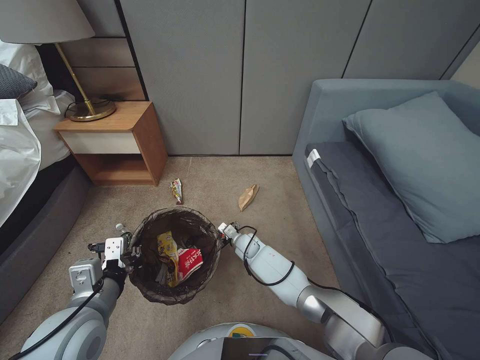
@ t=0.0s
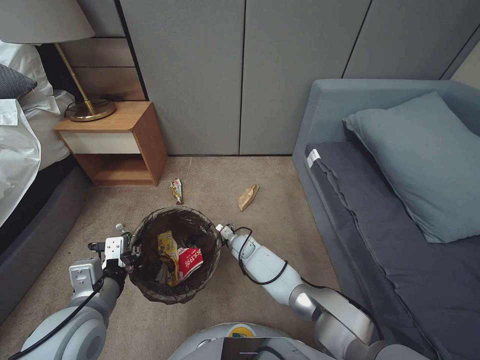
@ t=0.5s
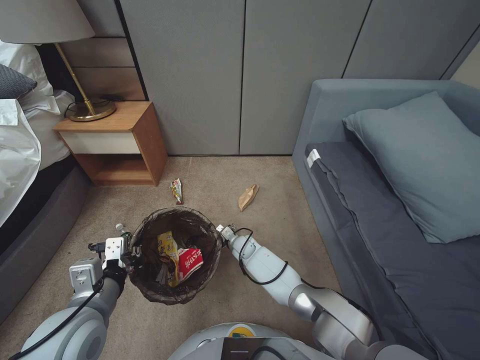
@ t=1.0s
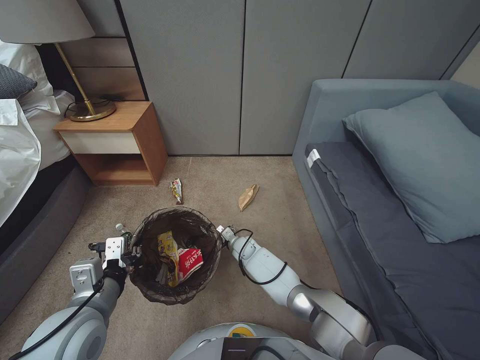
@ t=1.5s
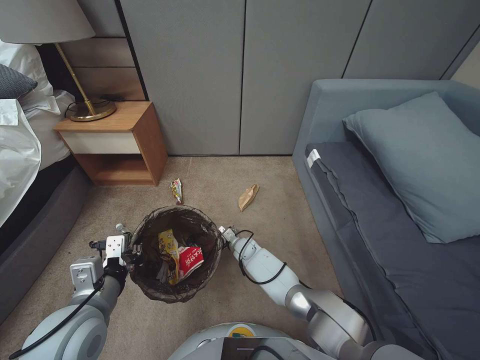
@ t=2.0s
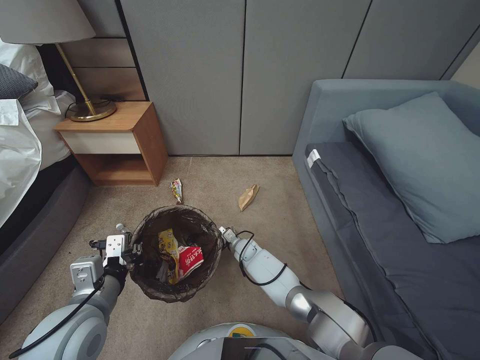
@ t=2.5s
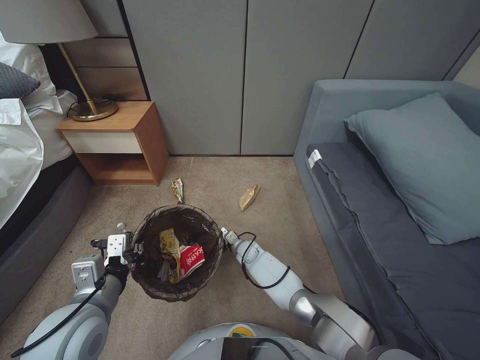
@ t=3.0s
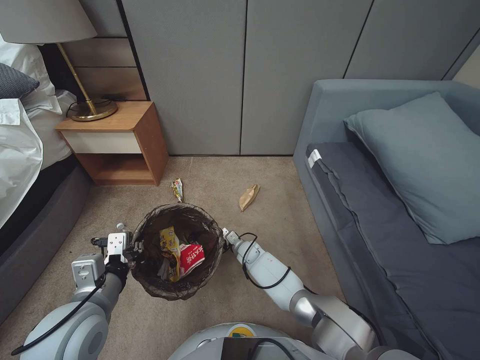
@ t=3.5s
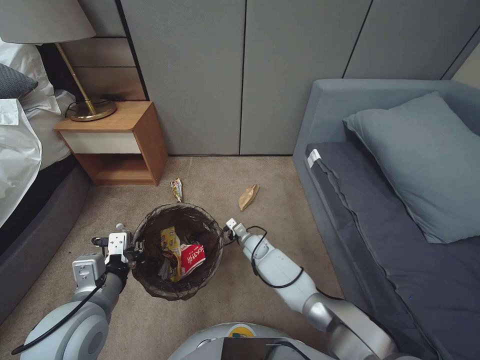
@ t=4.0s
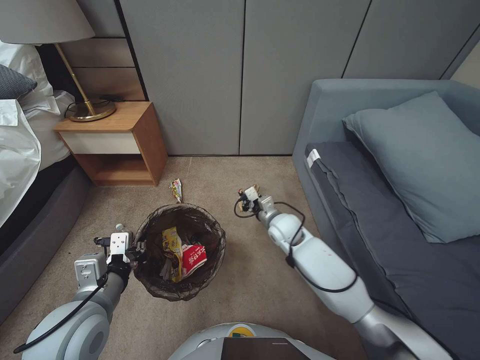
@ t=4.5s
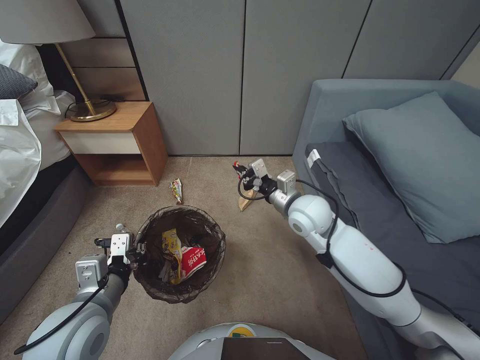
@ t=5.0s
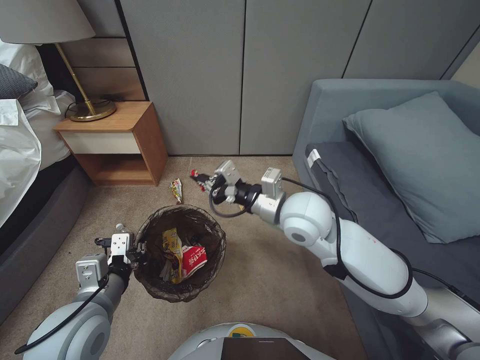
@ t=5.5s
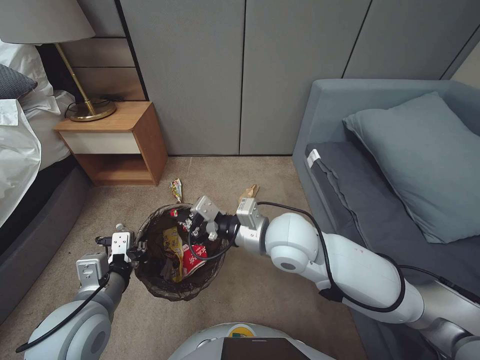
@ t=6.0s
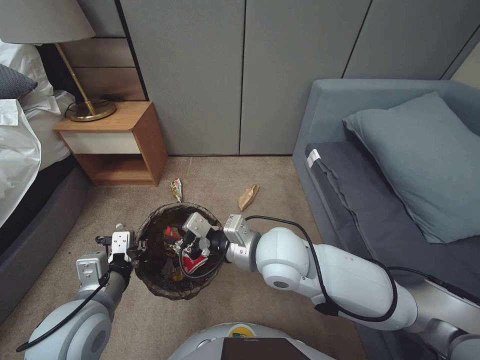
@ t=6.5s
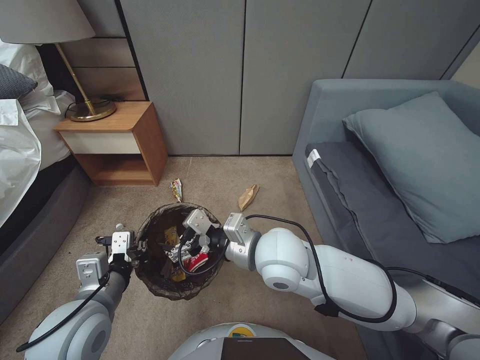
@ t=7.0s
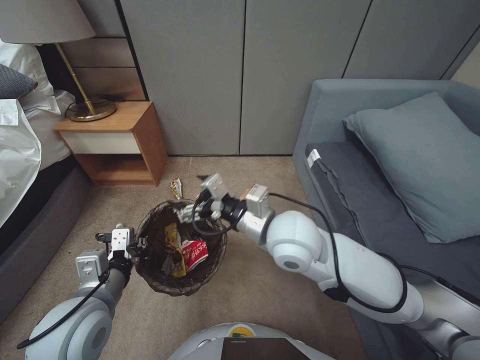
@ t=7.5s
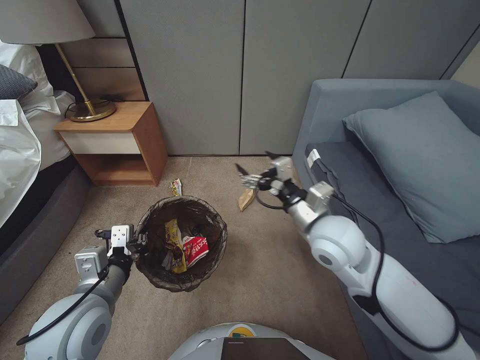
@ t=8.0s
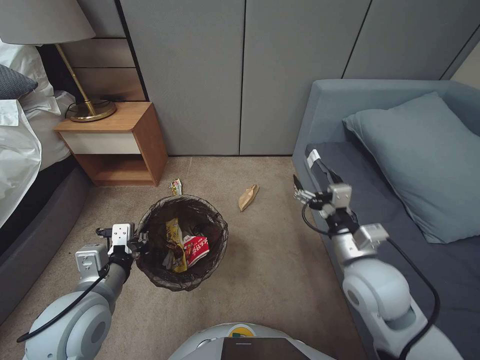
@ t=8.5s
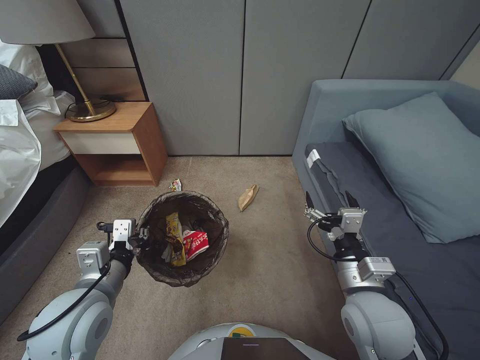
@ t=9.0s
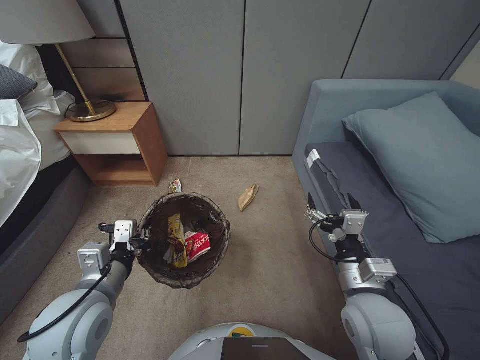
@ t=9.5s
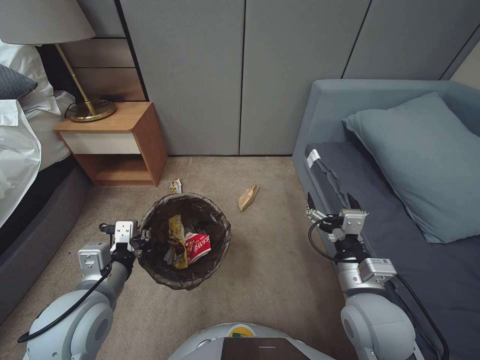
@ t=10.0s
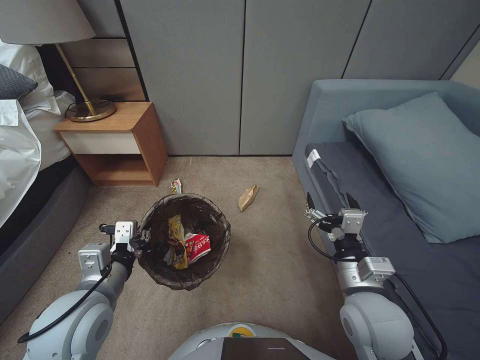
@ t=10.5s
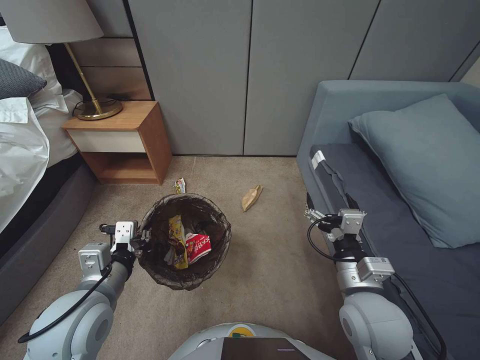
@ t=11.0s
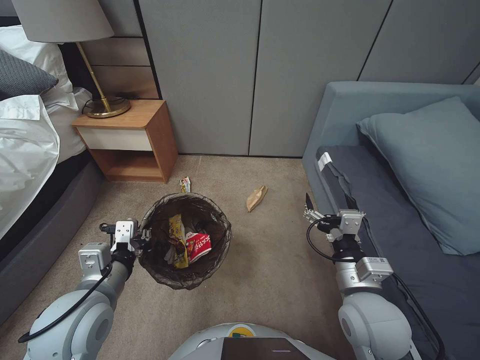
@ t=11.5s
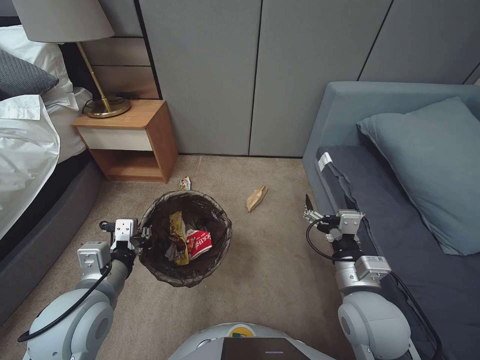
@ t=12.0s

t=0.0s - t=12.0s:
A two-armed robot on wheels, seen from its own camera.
Task of the whole recording: Pick up the trash bin, then pick up the garbage from the floor and place it into the trash bin.
t=0.0s - t=2.0s: The grippers stay close to where they were, moving slightly.
t=2.0s - t=4.0s: The right gripper closes.
t=4.0s - t=6.0s: The right gripper moves upward, roughly 35 cm.
t=6.0s - t=8.0s: The right gripper moves to the right, about 10 cm, and opens.
t=8.0s - t=10.0s: The right gripper heads backward, downward and to the right, covering some 15 cm.
t=10.0s - t=12.0s: Neither gripper changes place.

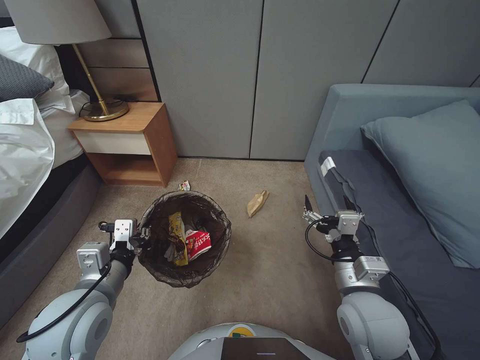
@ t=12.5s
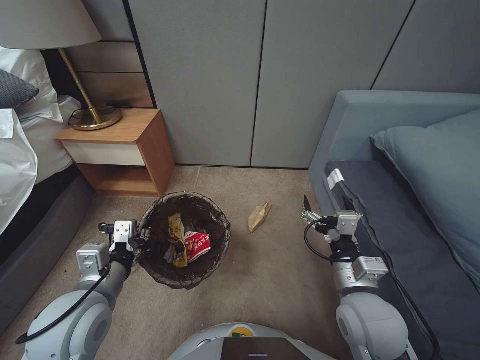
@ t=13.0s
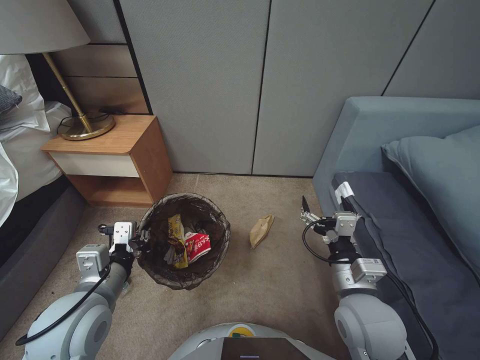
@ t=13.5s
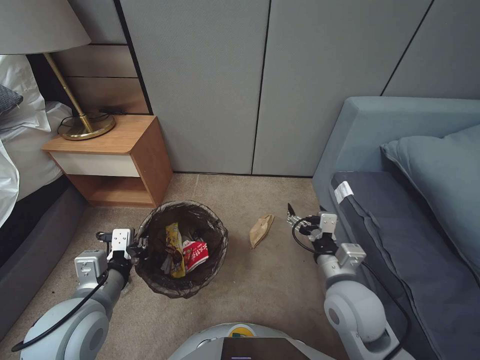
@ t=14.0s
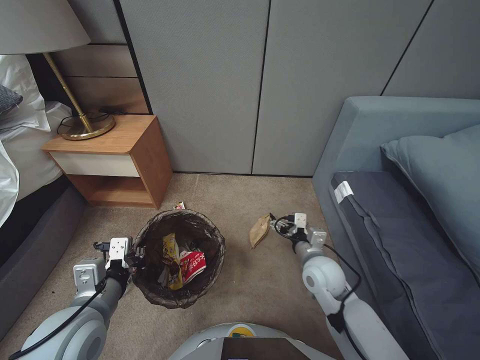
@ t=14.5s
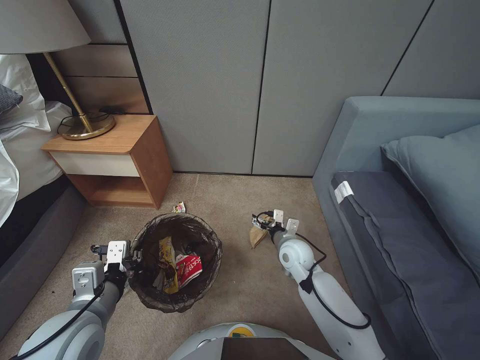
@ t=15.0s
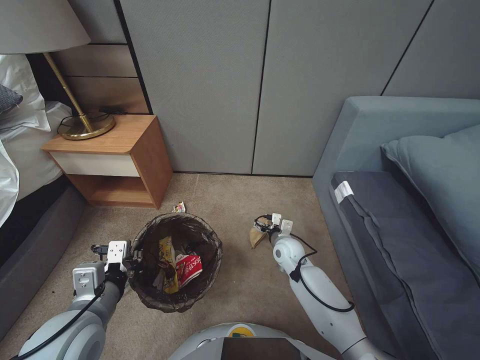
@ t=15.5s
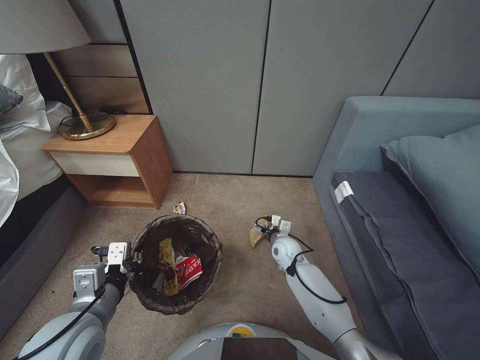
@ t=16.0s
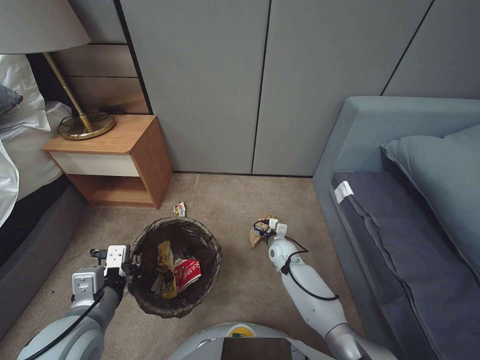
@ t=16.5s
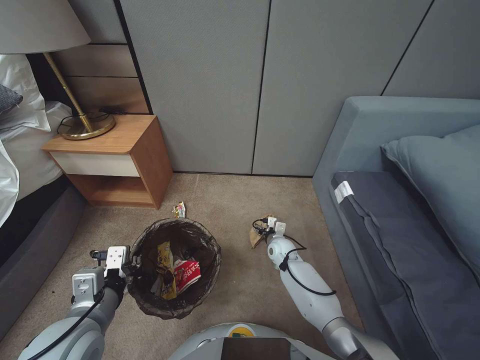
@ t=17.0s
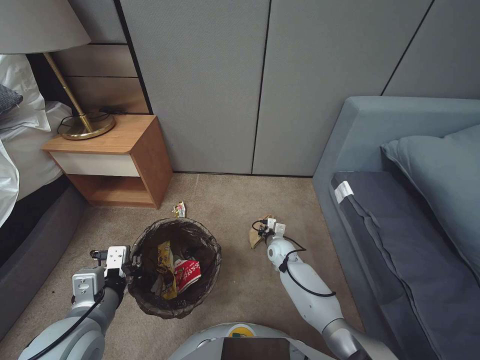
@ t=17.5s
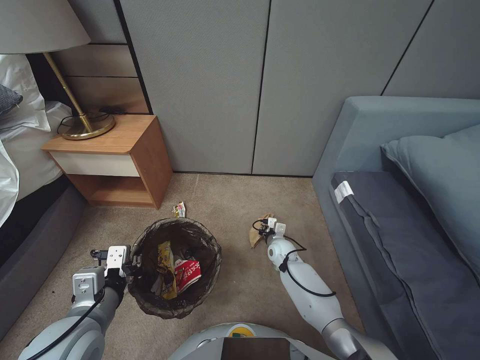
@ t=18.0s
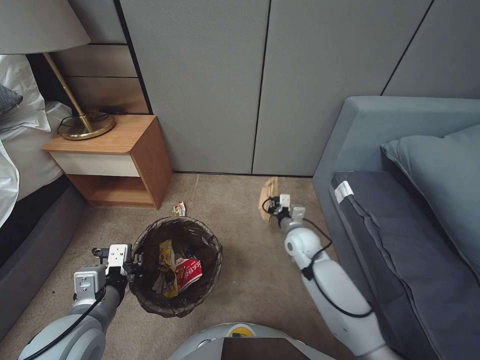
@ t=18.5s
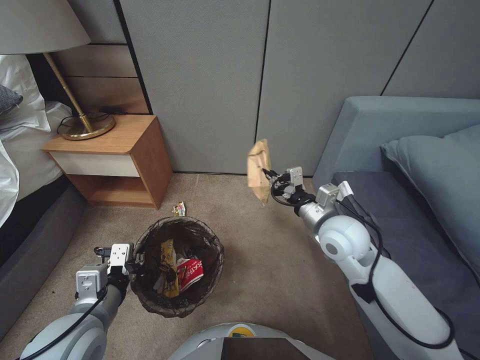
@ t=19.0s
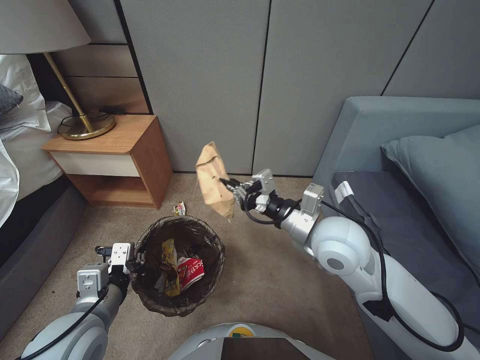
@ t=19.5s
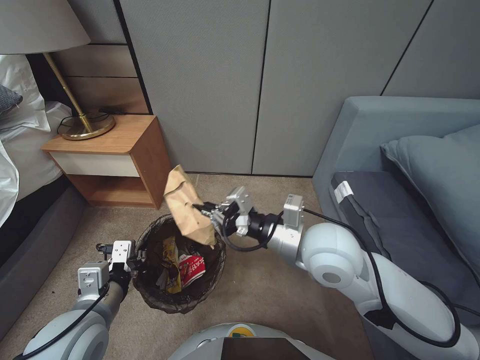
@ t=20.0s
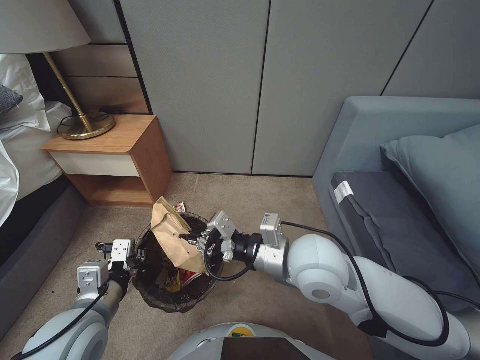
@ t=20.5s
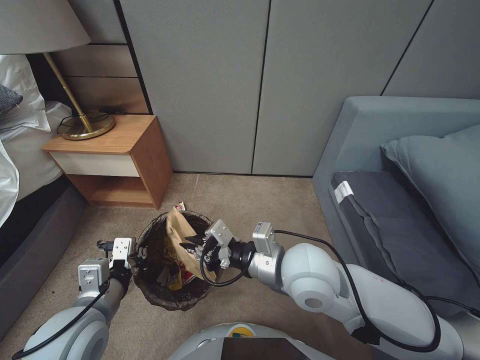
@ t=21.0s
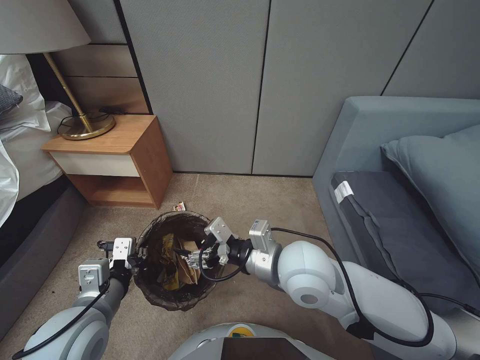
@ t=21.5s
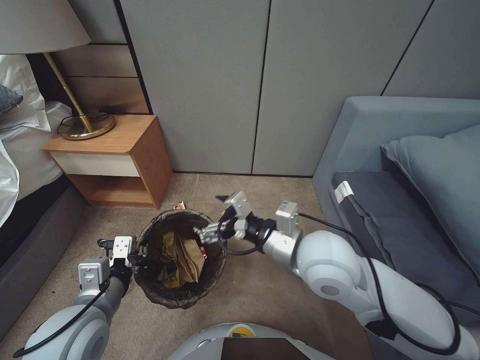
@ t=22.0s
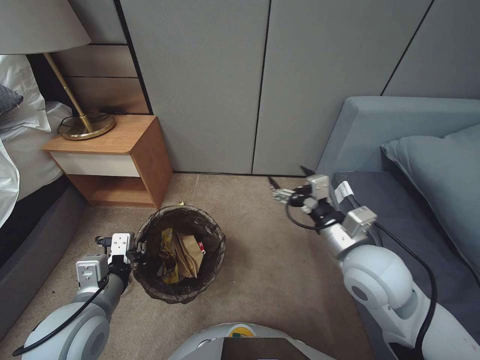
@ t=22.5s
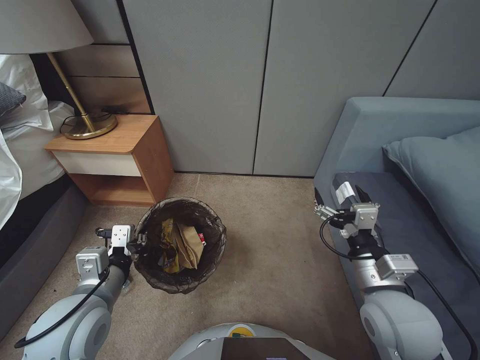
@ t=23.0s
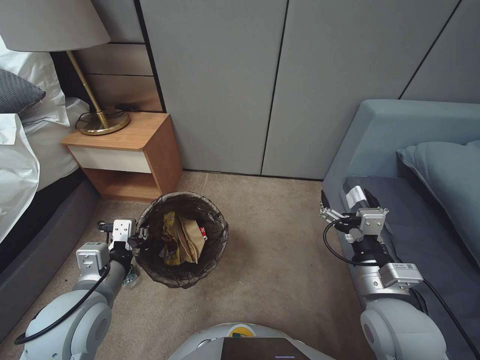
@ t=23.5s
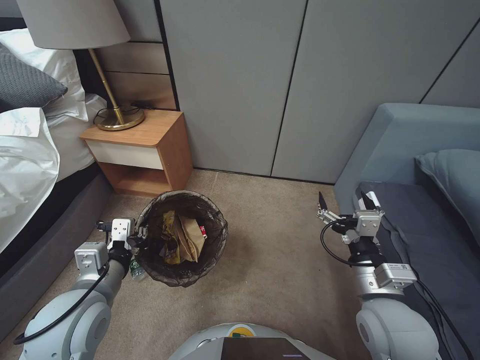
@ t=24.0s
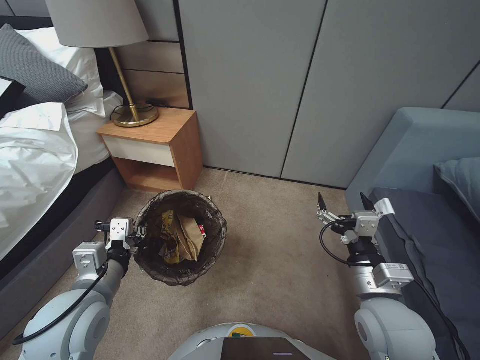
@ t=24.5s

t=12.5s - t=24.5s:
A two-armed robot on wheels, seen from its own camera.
Task of the whole recording: Pick up the trash bin, then pick up the garbage from the floor and place it into the trash bin.
t=12.5s - t=14.5s: The right gripper goes some 10 cm forward and downward.
t=14.5s - t=16.5s: The right gripper heads downward and forward, covering about 20 cm.
t=16.5s - t=18.5s: The right gripper moves upward, some 10 cm, and closes its fingers.
t=18.5s - t=20.5s: The right gripper goes about 30 cm upward and backward.
t=20.5s - t=22.5s: The right gripper heads to the right, covering about 10 cm, and opens.
t=22.5s - t=24.5s: The right gripper is displaced backward and downward by some 10 cm.

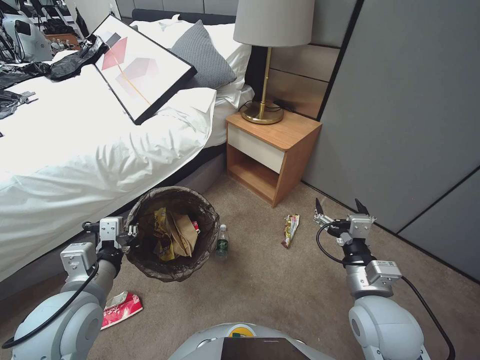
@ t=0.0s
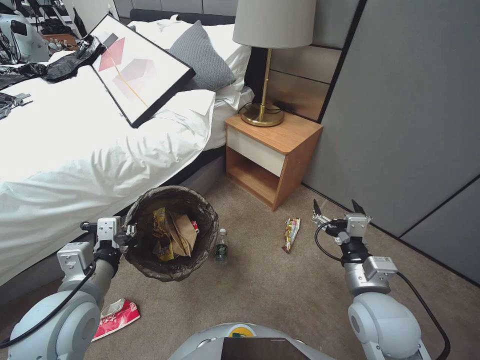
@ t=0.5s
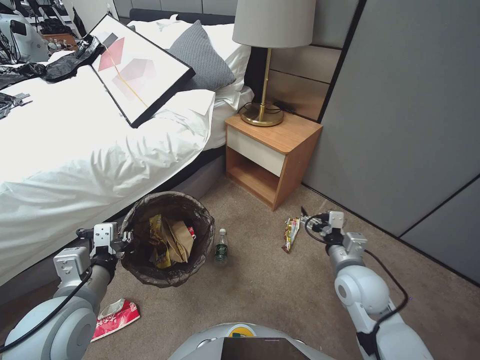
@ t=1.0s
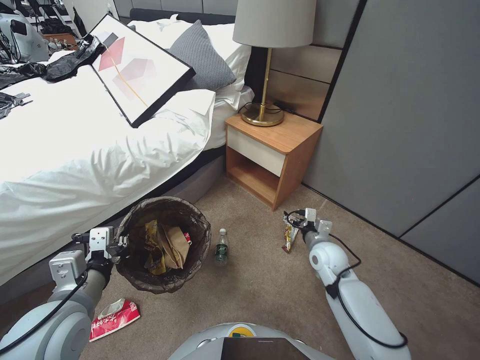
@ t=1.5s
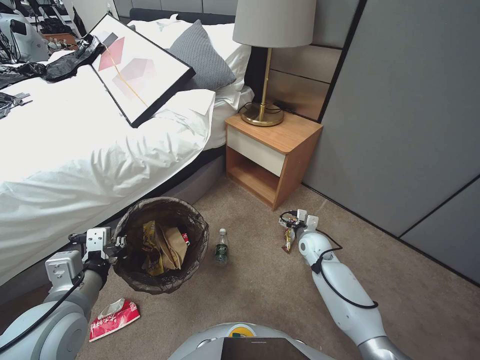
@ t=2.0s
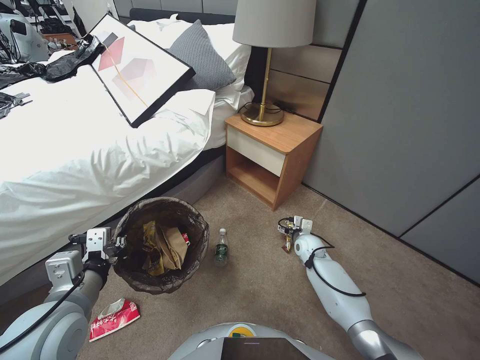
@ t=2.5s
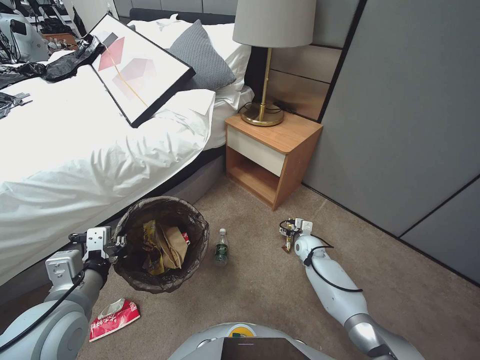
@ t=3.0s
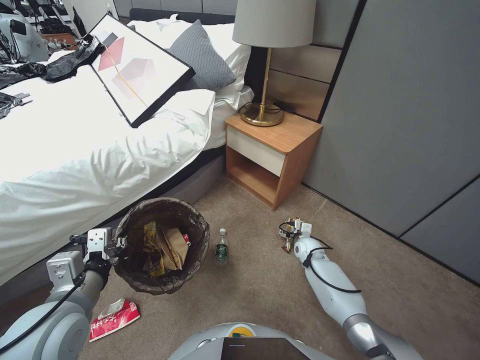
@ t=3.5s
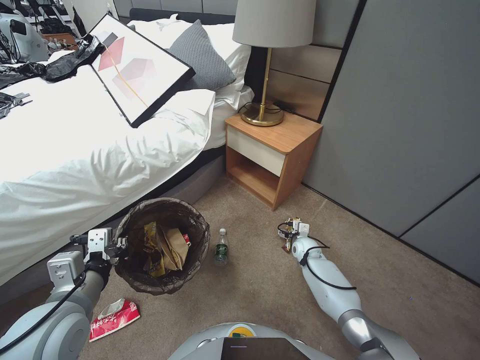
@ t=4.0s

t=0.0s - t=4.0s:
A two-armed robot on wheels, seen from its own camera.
Task of the whole recording: Pick up the trash bin, then pick up the garbage from the floor and place it into the trash bin.
t=0.0s - t=2.0s: The right gripper is displaced forward and downward by about 30 cm.
t=2.0s - t=4.0s: The right gripper heads downward, covering about 10 cm.
